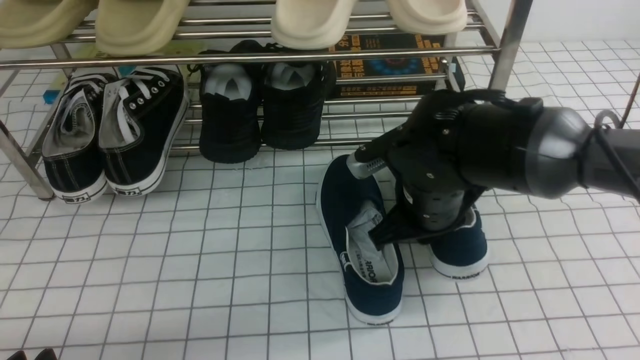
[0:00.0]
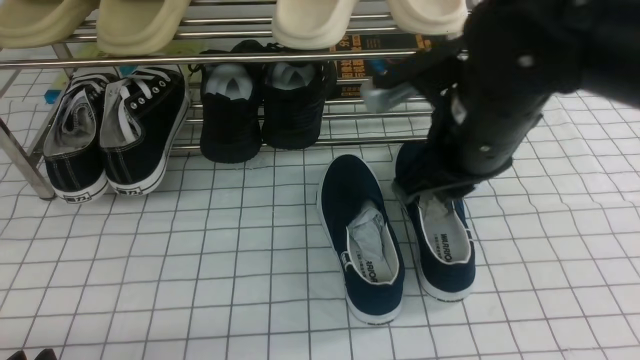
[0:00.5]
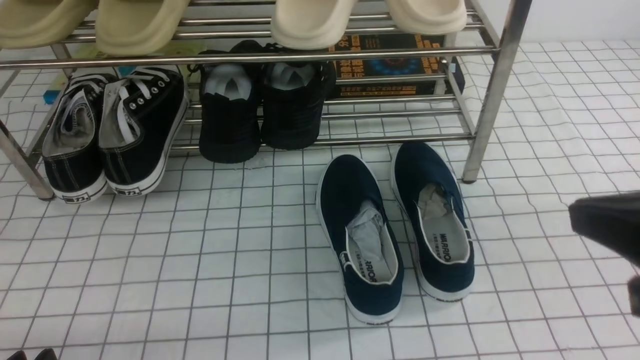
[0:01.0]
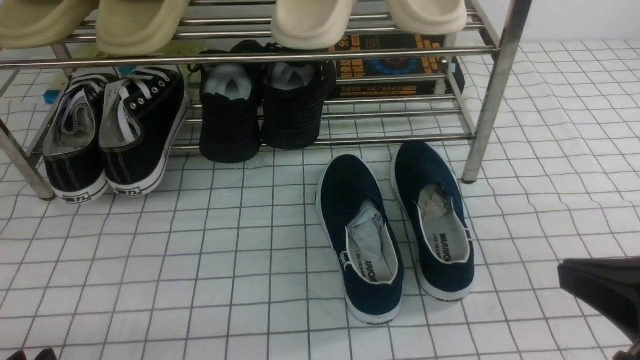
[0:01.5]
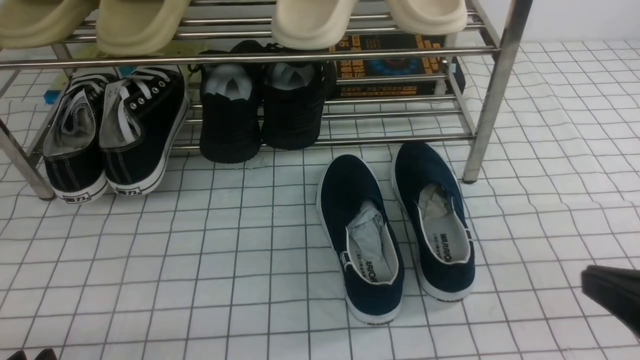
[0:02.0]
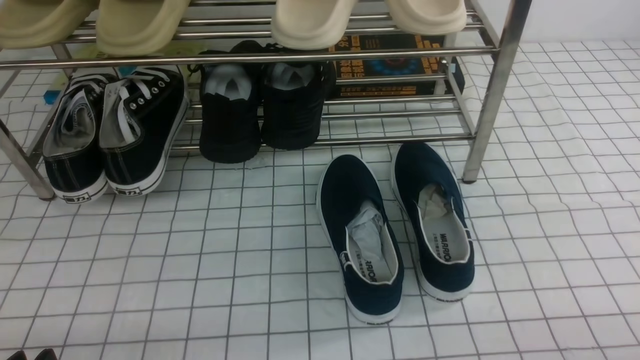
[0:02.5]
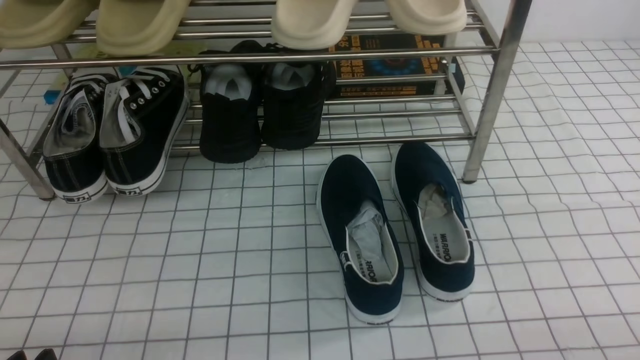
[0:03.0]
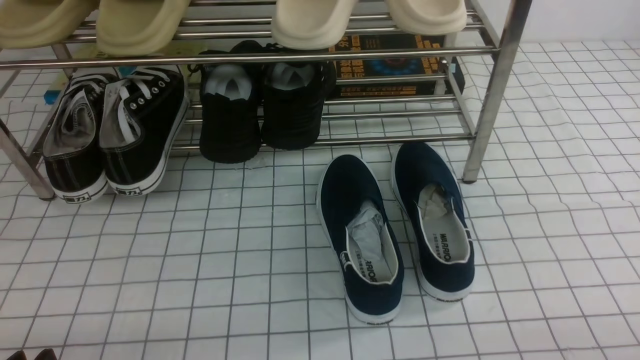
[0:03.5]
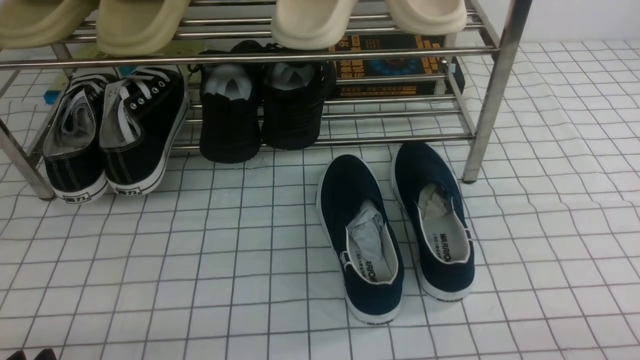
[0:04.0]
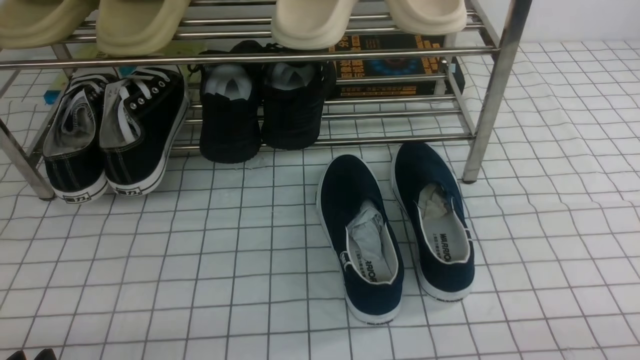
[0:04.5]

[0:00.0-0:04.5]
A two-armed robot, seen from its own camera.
0:00.0 to 0:02.0: The right gripper moves backward and to the right, roughly 25 cm.
0:02.0 to 0:04.5: The right gripper travels downward and to the right by approximately 10 cm.
